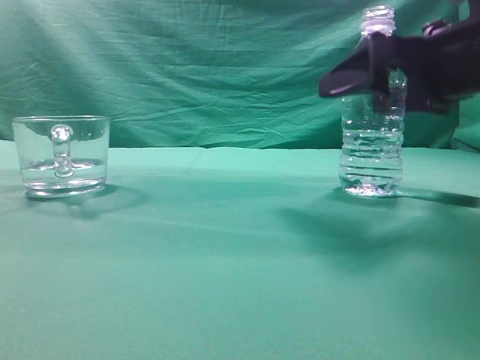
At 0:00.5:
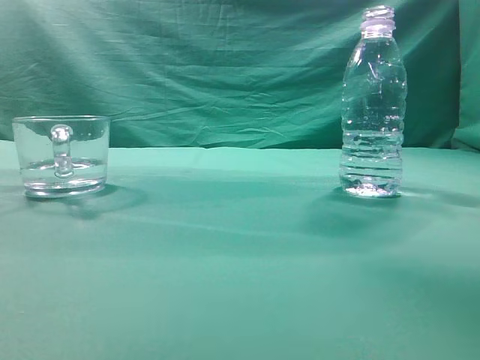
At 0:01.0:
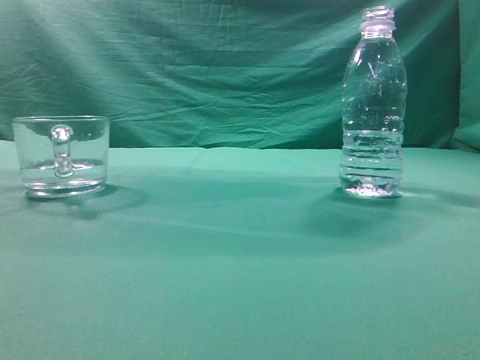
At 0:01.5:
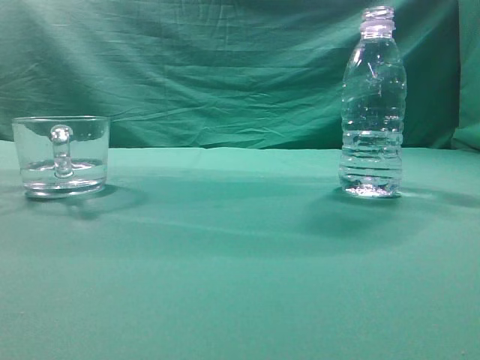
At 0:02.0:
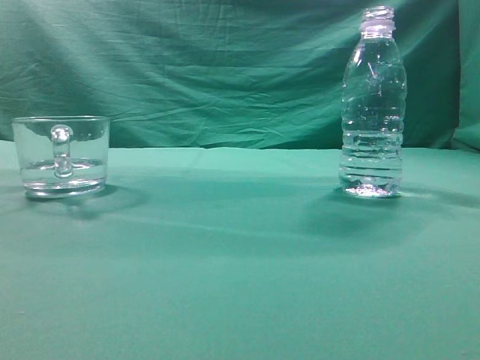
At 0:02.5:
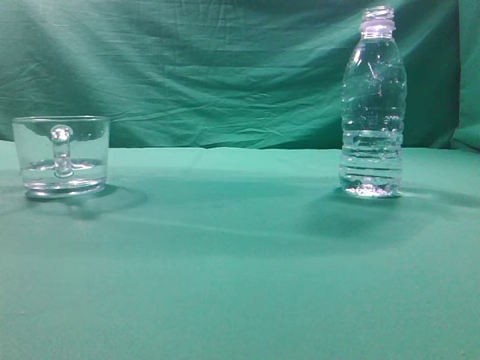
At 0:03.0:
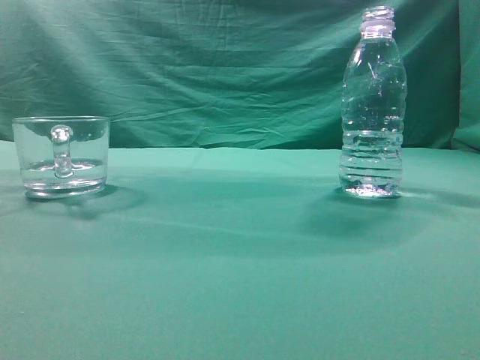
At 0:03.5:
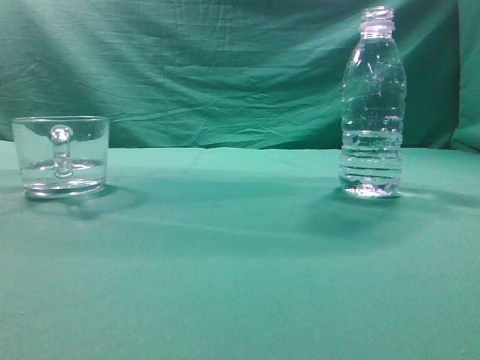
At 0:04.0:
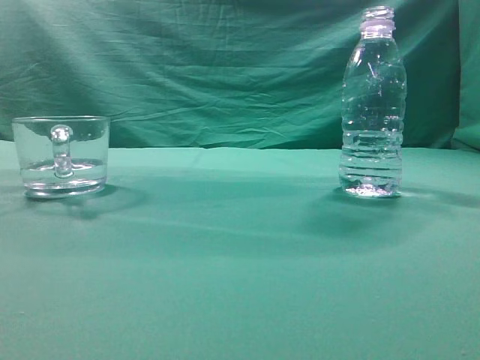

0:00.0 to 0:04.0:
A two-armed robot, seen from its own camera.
Task of the whole recording: pick up the water bottle and pour the water in it into the glass.
0:00.0 to 0:02.0: The right gripper travels upward and backward by approximately 35 cm, and closes its fingers.
